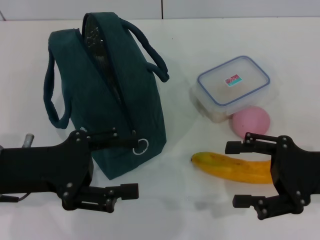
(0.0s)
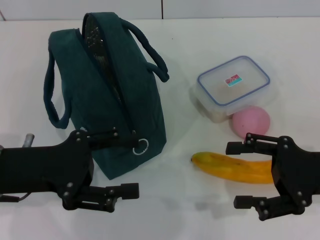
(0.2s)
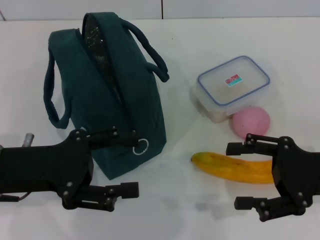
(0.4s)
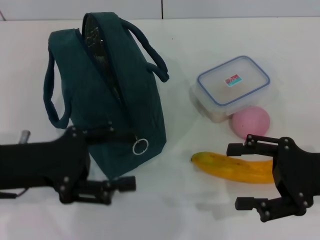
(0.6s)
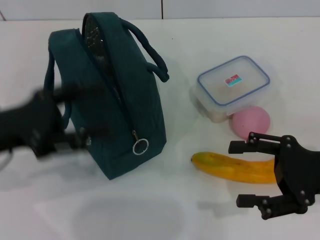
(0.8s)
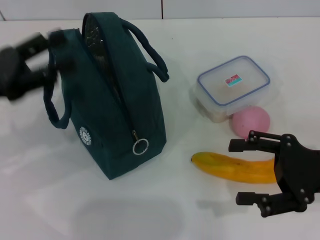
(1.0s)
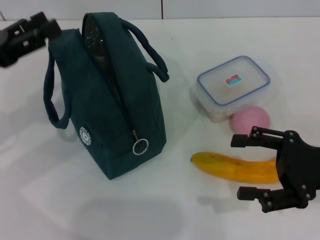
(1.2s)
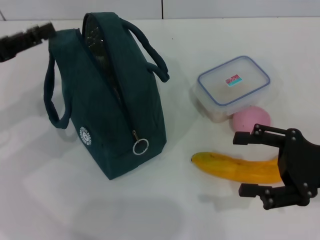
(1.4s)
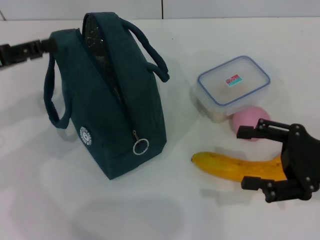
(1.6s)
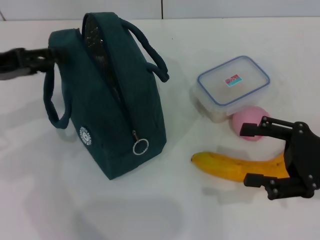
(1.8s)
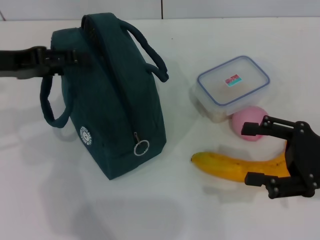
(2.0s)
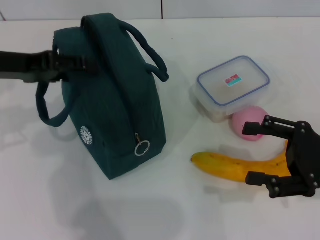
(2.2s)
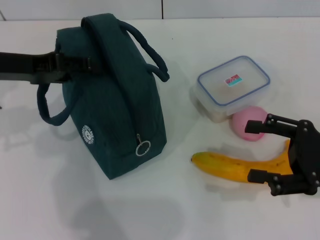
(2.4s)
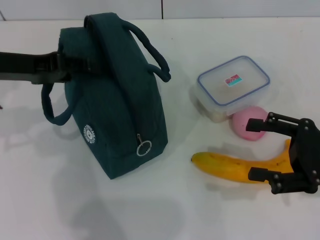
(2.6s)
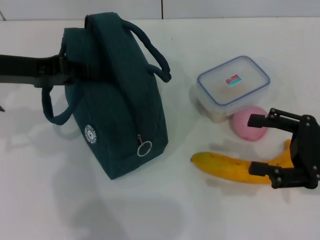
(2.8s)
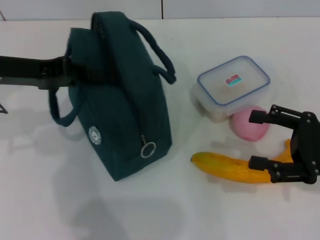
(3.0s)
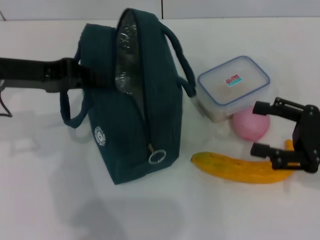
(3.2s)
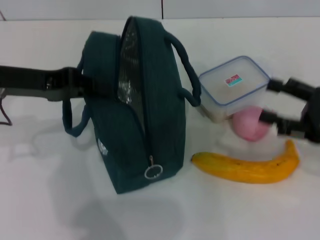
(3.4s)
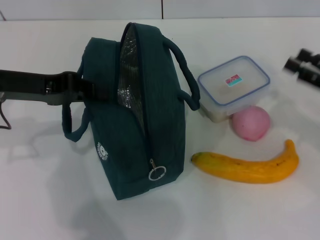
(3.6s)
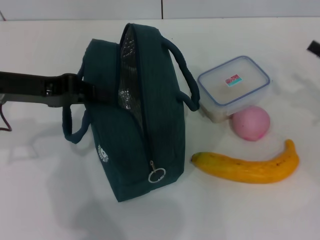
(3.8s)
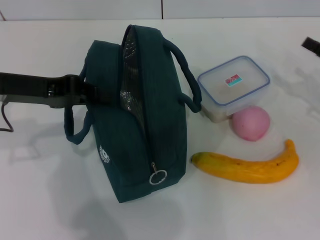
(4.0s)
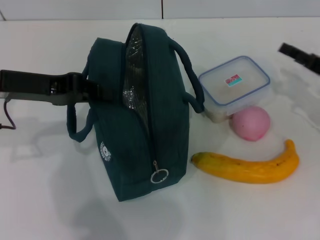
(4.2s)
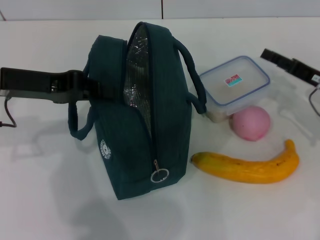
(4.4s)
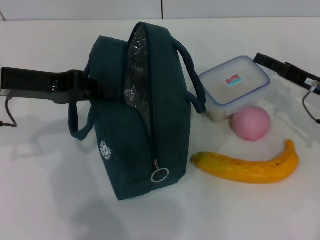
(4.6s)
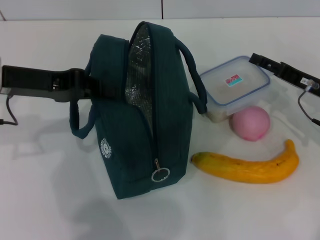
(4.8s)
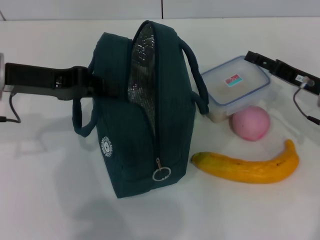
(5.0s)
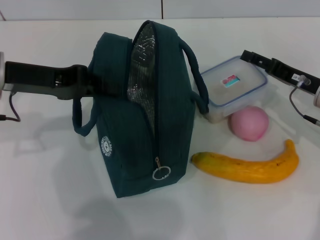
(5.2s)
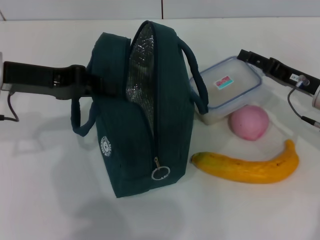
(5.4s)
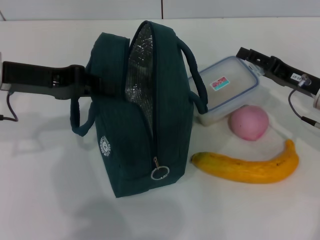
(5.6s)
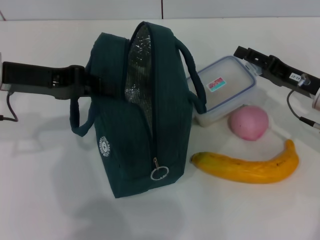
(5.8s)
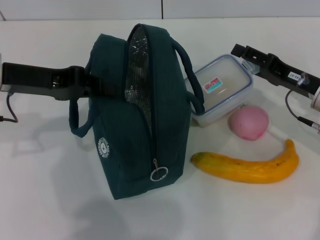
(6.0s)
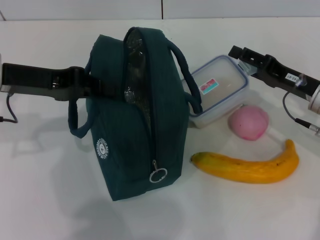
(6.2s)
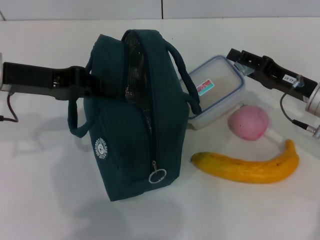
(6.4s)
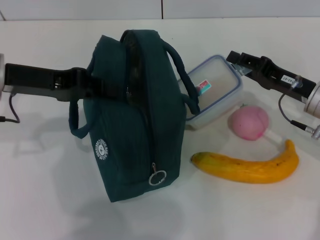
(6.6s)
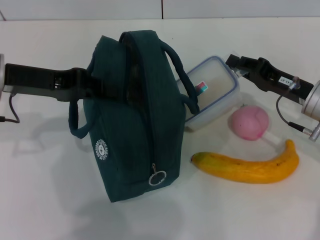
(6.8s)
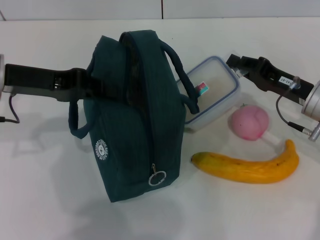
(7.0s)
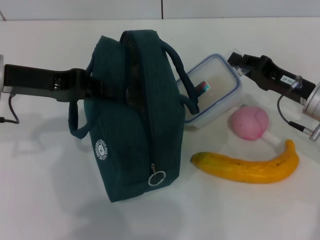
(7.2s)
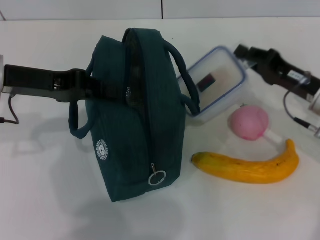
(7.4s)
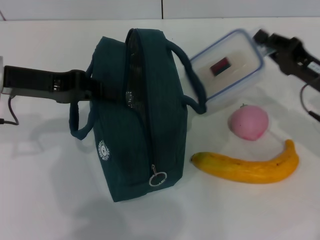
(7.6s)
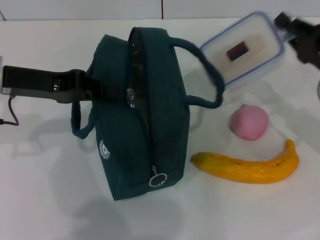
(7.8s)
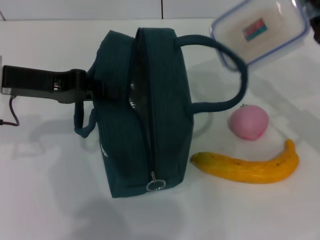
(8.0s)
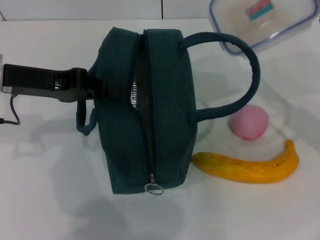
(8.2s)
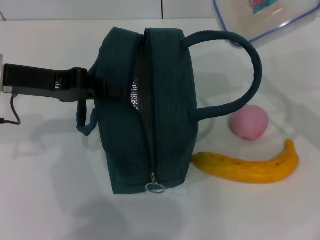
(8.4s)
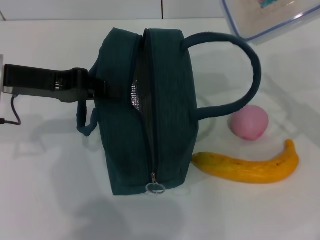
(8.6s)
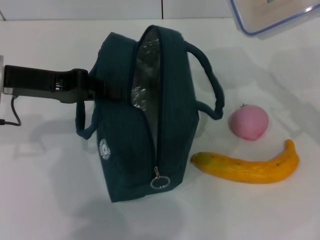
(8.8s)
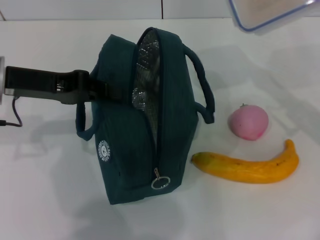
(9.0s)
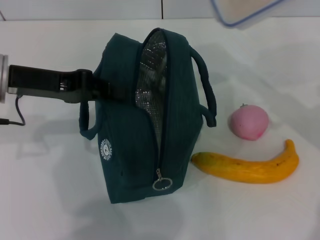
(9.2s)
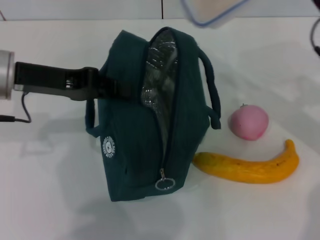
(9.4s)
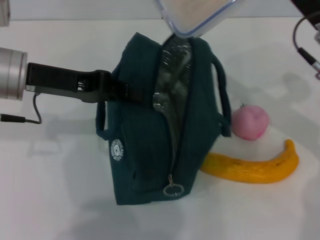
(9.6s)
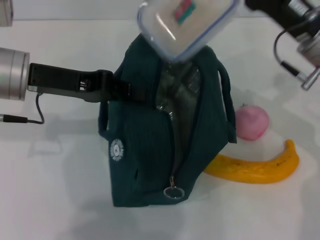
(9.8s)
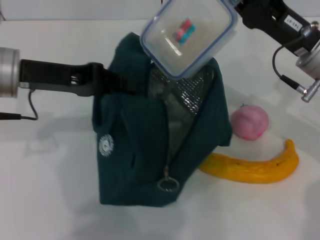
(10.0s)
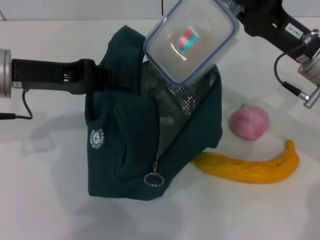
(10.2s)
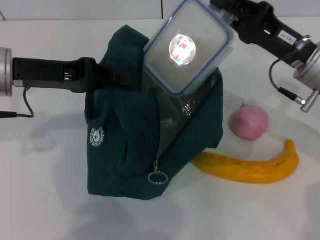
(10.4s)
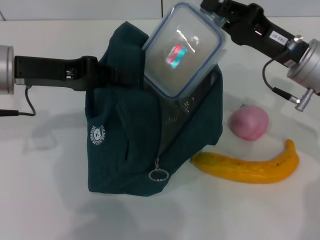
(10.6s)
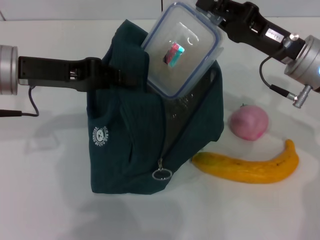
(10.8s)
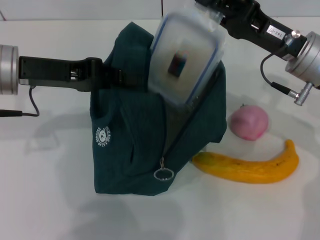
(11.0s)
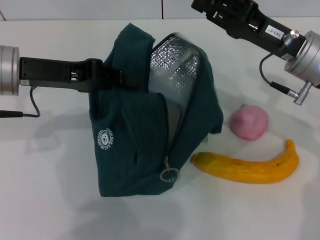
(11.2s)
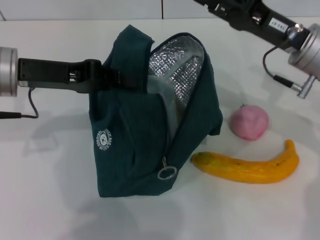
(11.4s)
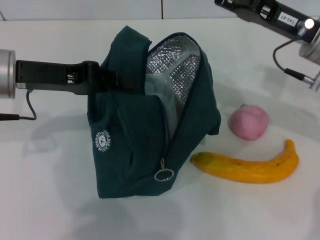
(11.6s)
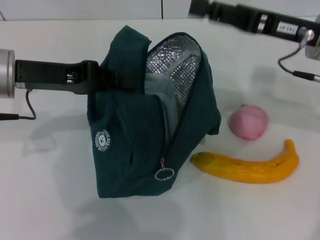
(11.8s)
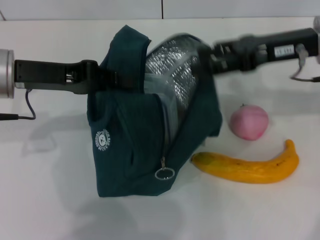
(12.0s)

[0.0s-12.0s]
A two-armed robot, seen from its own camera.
Step, 0.0s to 4.0s: Hold the lunch bag with your left hand.
Step, 4.2s to 6.8s: Pick up the lunch box with your right hand.
Step, 7.0s to 11.8s: Place the lunch box into the lunch bag with your right hand.
0.0s to 1.6s: The left gripper moves to the left and forward, some 10 cm.
1.6s to 3.0s: The left gripper moves to the right, some 5 cm, and closes its fingers.
3.0s to 4.4s: The right gripper heads forward, covering approximately 10 cm, while the left gripper closes up.
4.4s to 6.0s: The grippers make only small movements.
6.0s to 7.6s: The right gripper closes its fingers.
7.6s to 9.0s: The right gripper is displaced upward by some 5 cm.
9.0s to 10.4s: The right gripper is displaced to the left by approximately 10 cm.
10.4s to 12.0s: The right gripper moves upward, about 10 cm, and opens up.

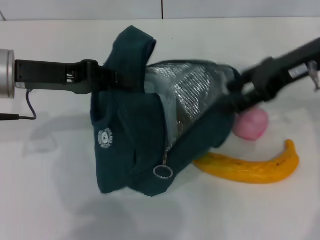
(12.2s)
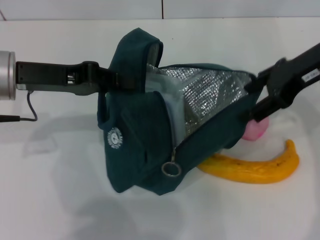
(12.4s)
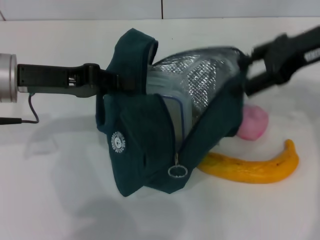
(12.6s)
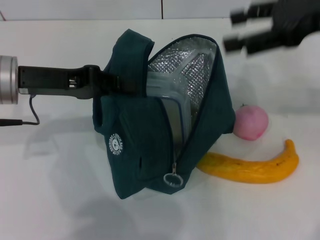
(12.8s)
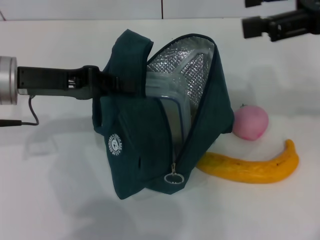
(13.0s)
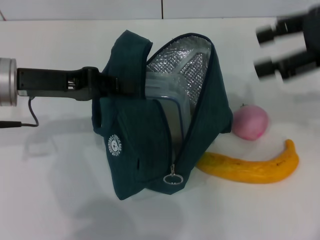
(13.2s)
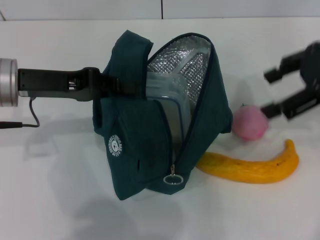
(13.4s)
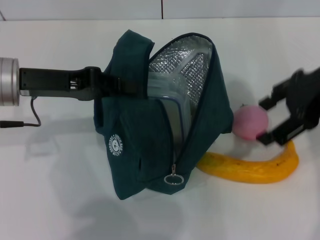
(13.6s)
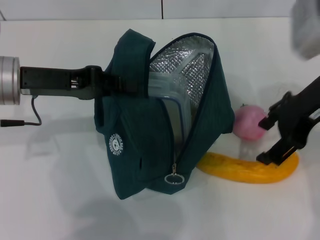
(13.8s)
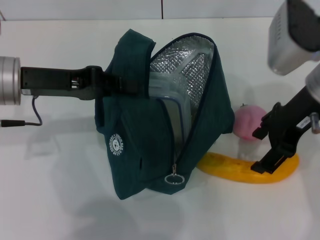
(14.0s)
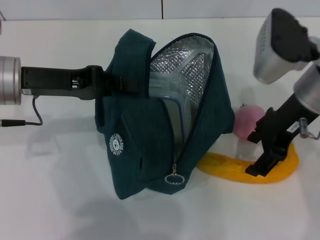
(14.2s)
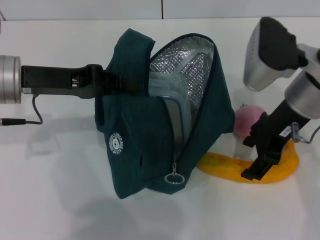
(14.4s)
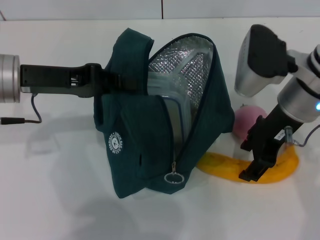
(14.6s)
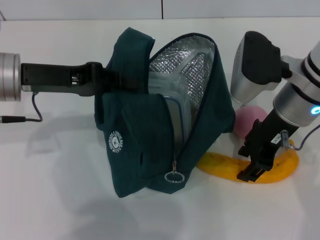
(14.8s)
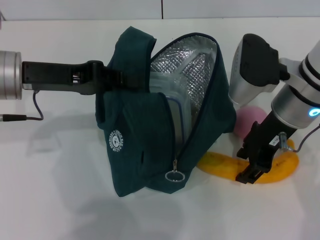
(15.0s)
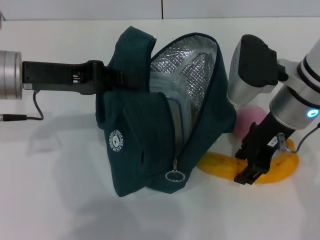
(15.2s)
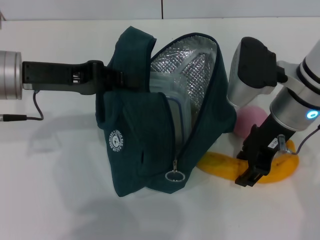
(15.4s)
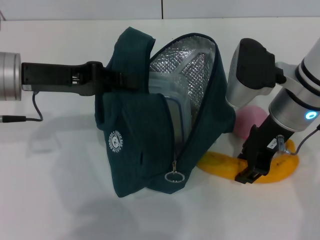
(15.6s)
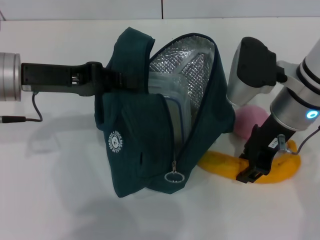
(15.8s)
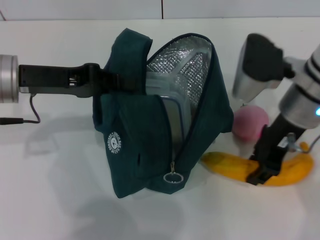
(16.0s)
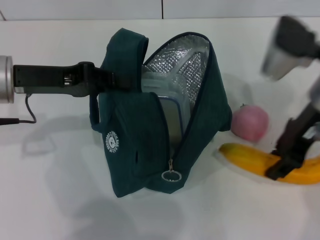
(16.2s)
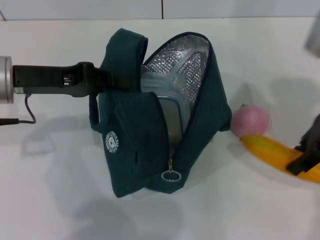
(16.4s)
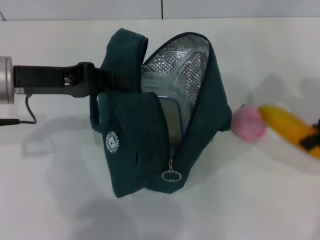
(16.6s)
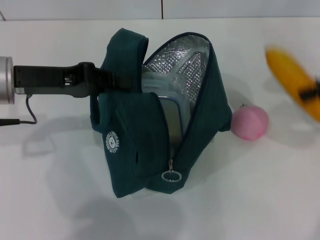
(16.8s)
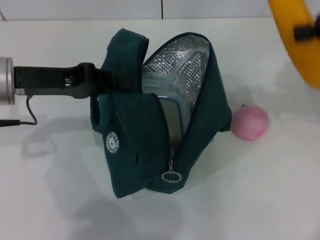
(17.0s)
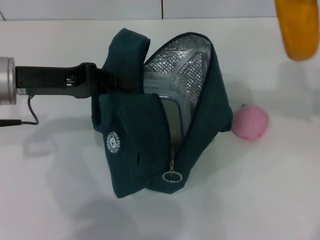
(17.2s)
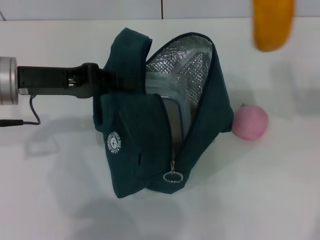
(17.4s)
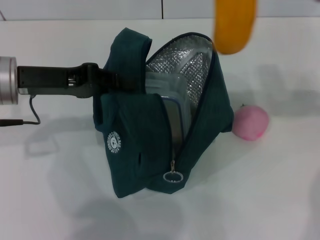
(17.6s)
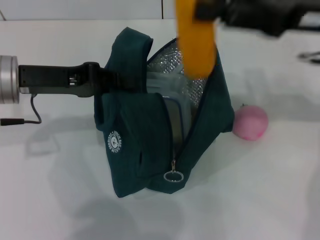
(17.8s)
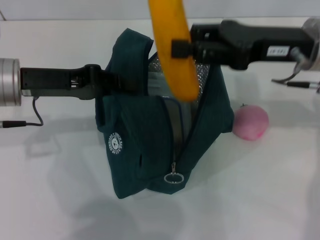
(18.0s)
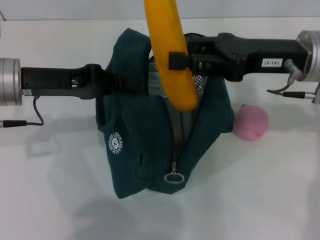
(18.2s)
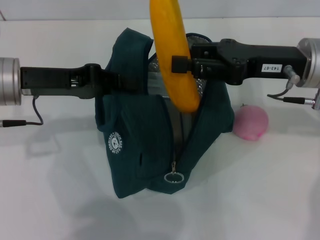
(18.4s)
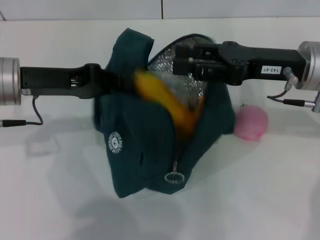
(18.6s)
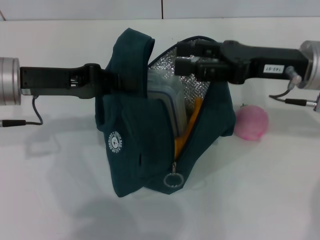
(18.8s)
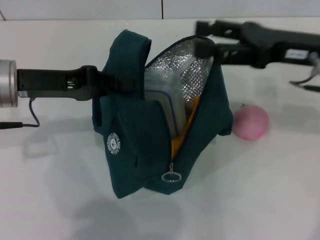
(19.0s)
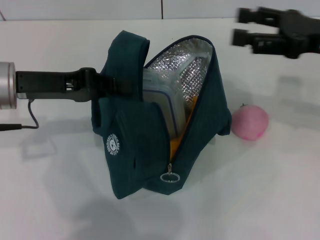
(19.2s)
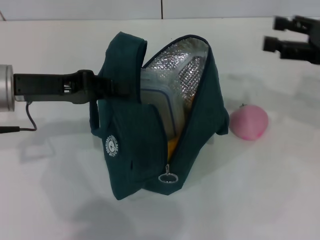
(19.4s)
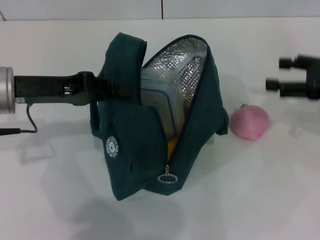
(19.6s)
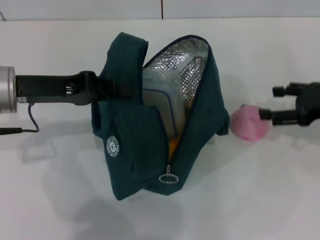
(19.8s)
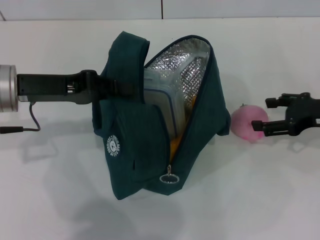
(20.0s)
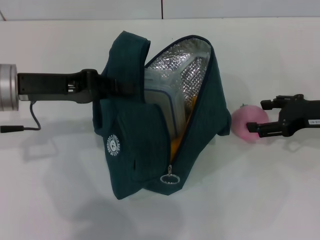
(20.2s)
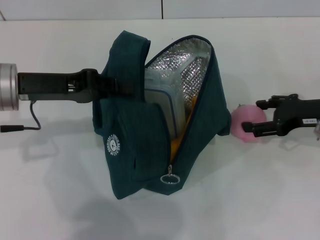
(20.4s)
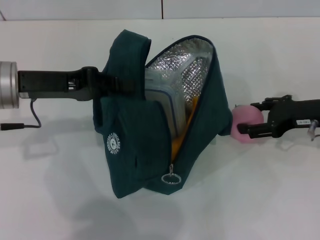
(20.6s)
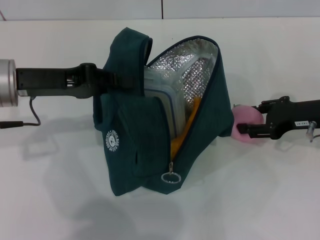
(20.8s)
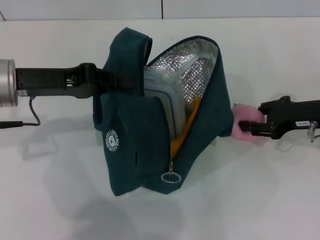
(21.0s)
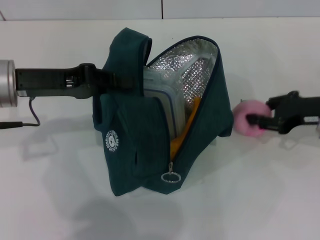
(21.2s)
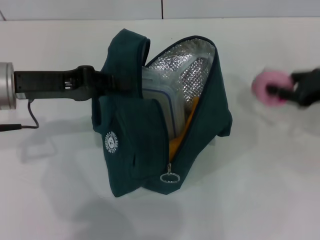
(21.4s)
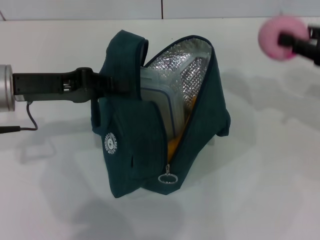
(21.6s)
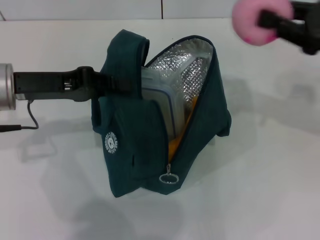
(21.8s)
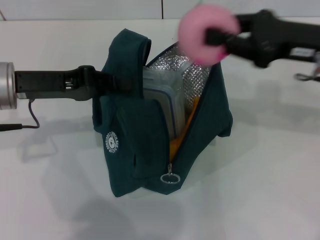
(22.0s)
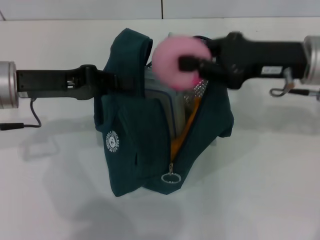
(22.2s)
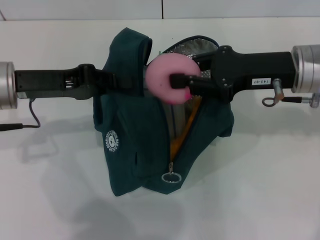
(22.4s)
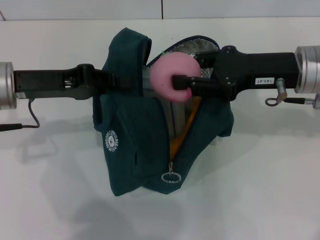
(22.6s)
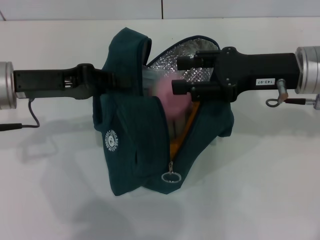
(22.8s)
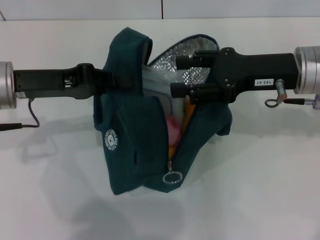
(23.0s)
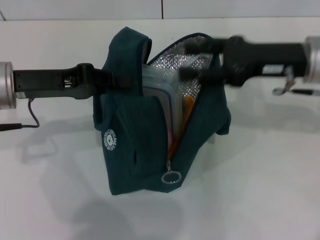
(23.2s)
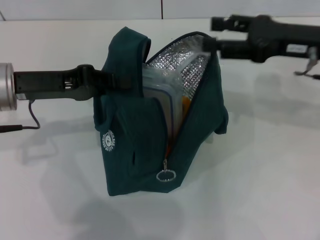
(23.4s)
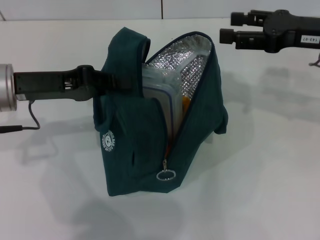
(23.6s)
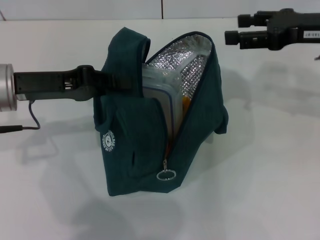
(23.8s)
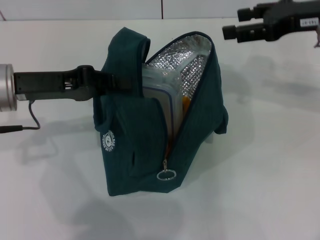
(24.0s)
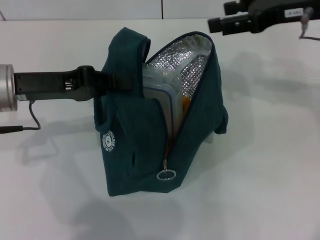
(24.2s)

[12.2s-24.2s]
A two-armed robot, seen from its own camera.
Step, 12.2s to 15.6s: Take the banana with your right hand.
Step, 15.8s to 18.8s: Put the banana into the lunch bag with your right hand.
Step, 19.2s to 21.0s: Grab the peach with your right hand.
12.2s to 13.8s: The right gripper travels upward and back again, approximately 10 cm each way.
13.8s to 15.2s: The right gripper is displaced downward and to the left by approximately 10 cm.
15.2s to 16.6s: The right gripper moves to the right and upward, approximately 15 cm.
16.6s to 18.2s: The right gripper goes about 10 cm to the left.
18.2s to 19.8s: The right gripper travels to the right and downward by roughly 15 cm, and opens up.
19.8s to 21.2s: The right gripper closes its fingers.
21.2s to 22.6s: The right gripper goes about 10 cm to the left and upward.
22.6s to 24.2s: The right gripper is displaced upward by about 5 cm, and opens its fingers.
